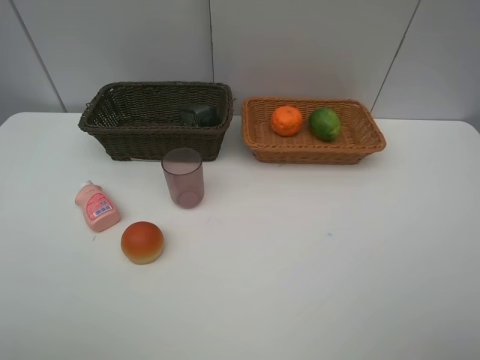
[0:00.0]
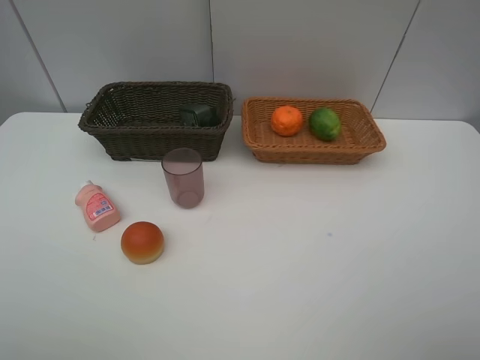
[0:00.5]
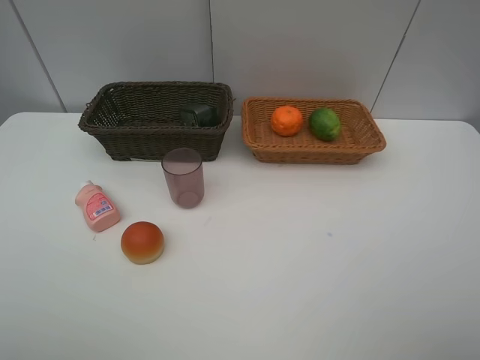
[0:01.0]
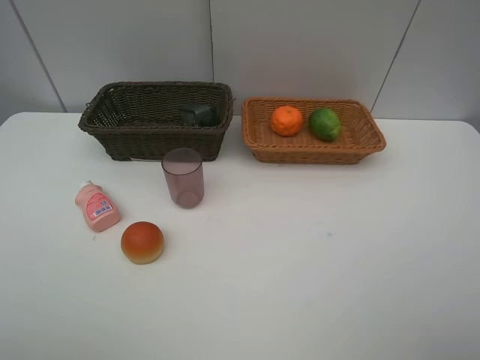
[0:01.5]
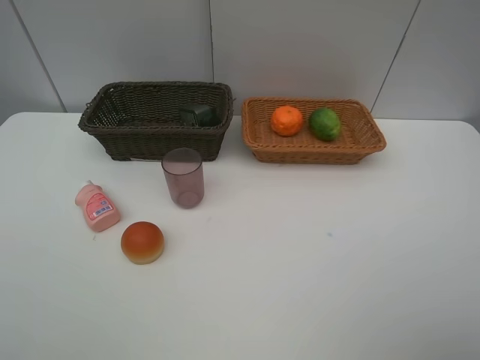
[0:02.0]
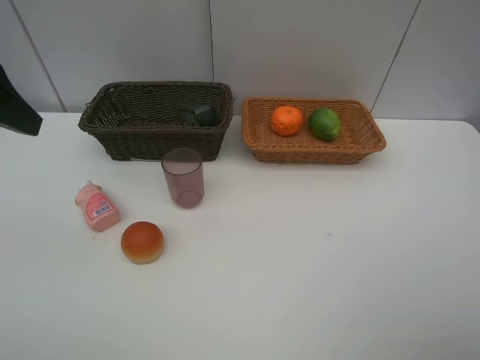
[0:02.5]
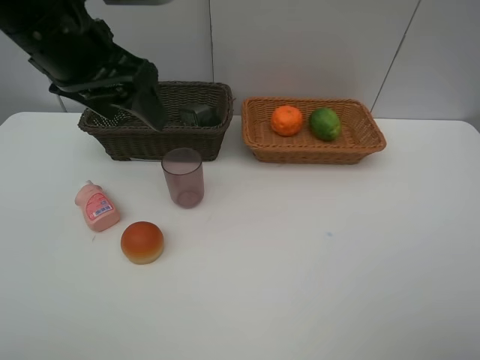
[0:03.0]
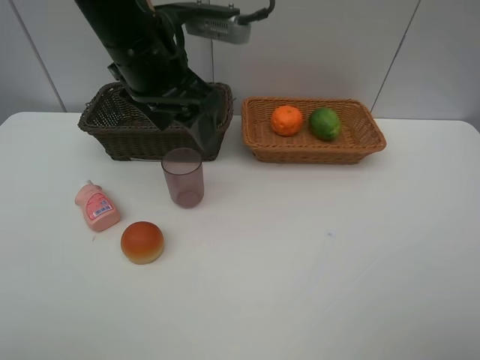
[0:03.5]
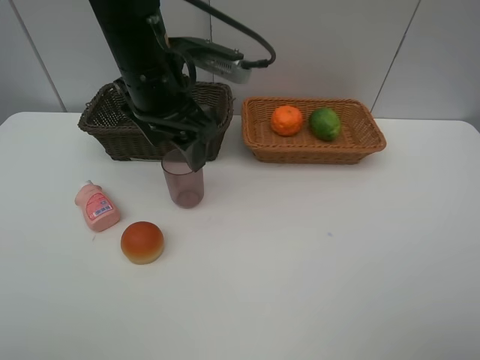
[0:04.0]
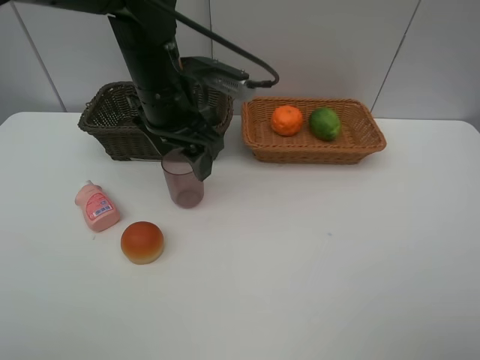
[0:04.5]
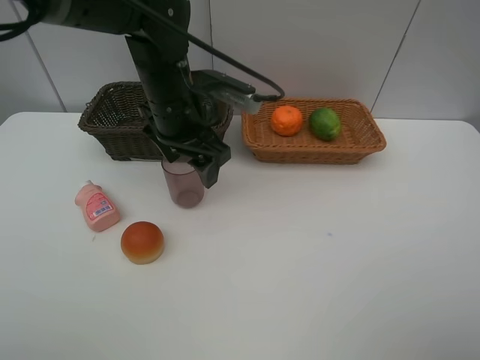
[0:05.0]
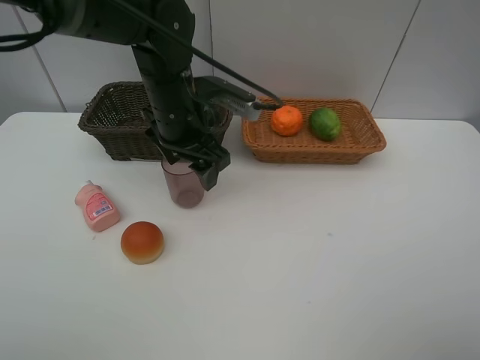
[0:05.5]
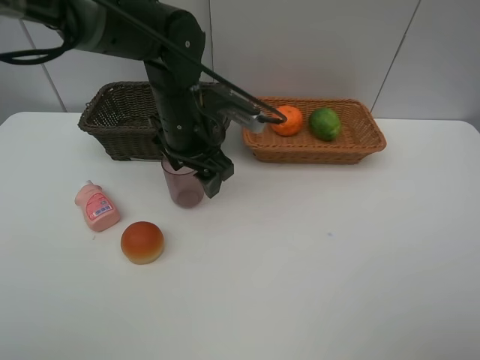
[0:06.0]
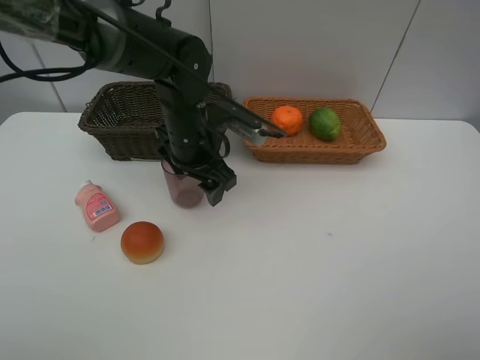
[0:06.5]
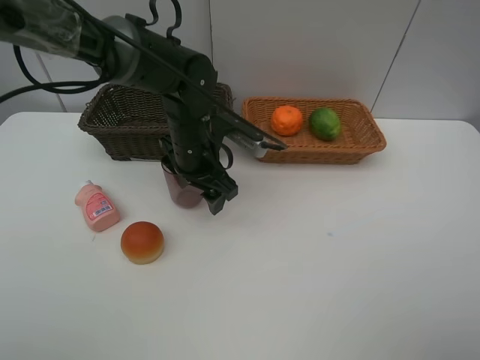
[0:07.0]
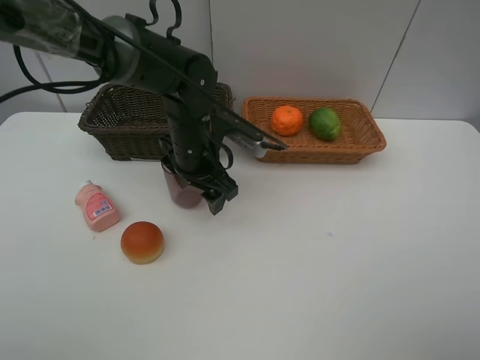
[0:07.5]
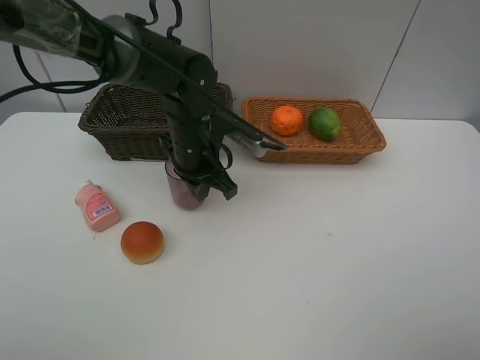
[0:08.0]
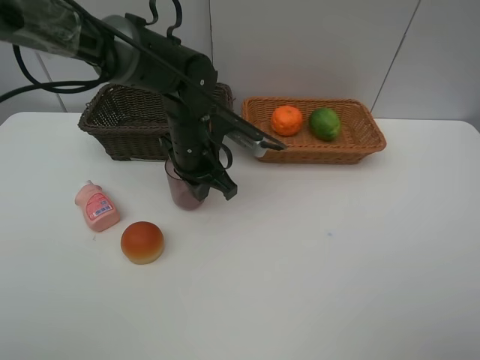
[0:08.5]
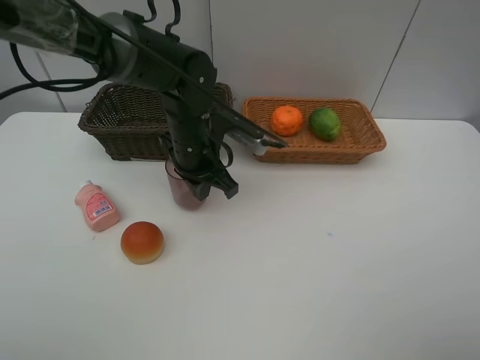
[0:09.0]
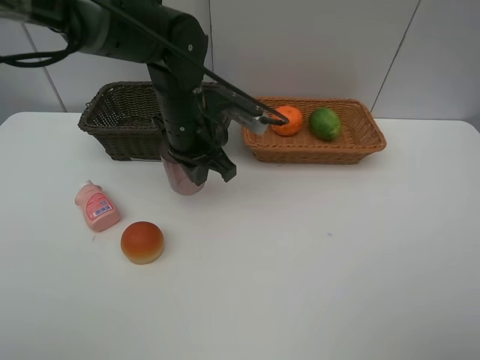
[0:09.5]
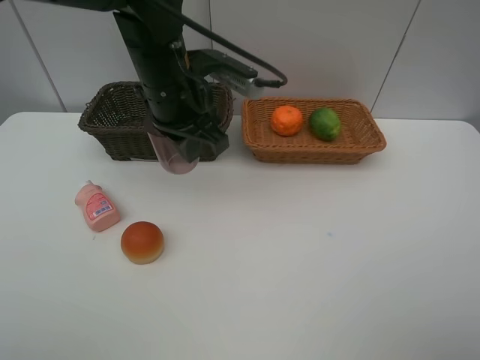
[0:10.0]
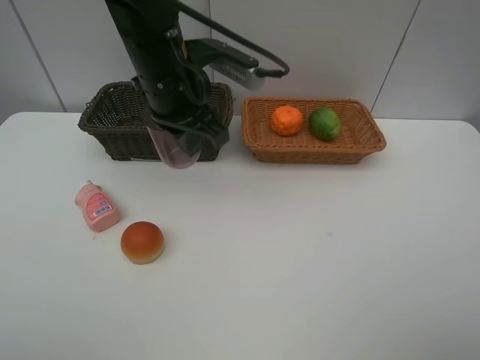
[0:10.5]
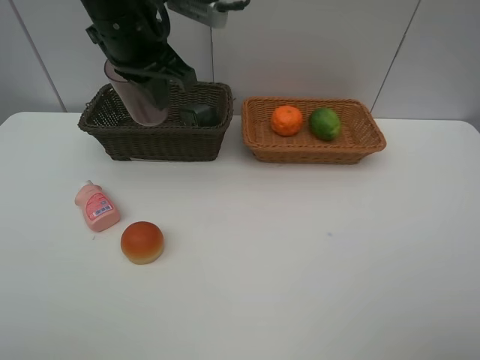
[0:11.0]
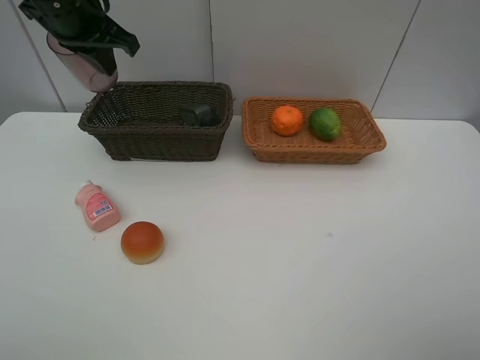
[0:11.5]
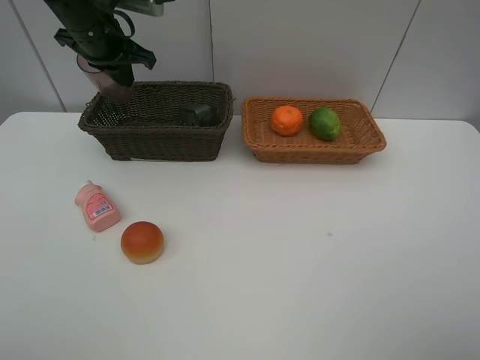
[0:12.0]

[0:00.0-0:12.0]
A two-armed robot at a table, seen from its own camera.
Task of the whole recording: place multiple objects separately in different baskets.
0:02.0 to 0:04.0: The left gripper travels forward, to the right and downward by some 30 cm.
0:04.0 to 0:06.0: The left gripper moves downward, about 10 cm.
0:06.0 to 0:08.0: The left gripper closes.
0:08.0 to 0:10.0: The left gripper travels upward by approximately 10 cm.
0:10.0 to 0:12.0: The left gripper heads to the left and forward, covering approximately 20 cm.

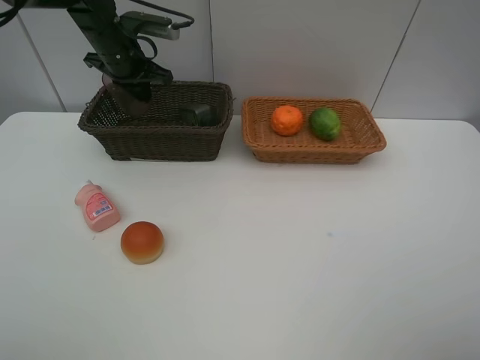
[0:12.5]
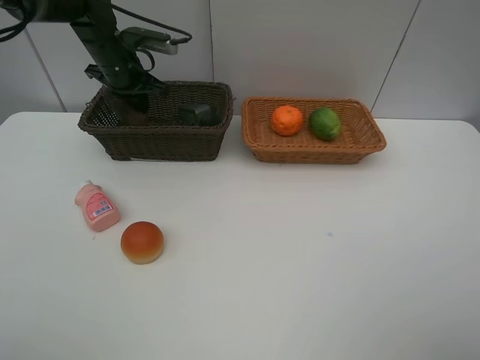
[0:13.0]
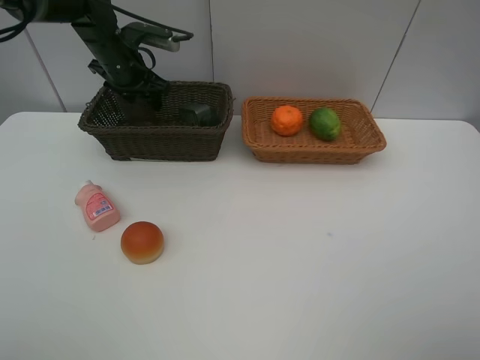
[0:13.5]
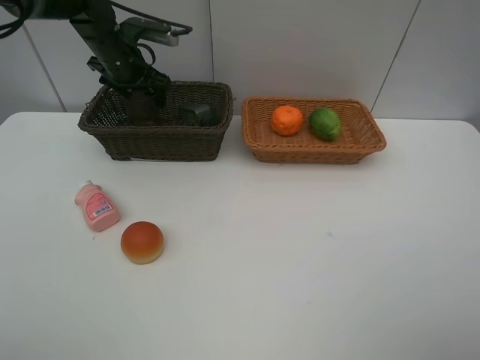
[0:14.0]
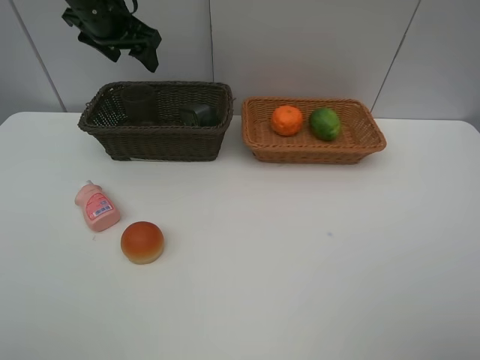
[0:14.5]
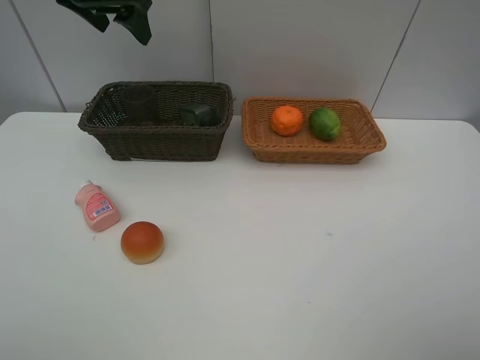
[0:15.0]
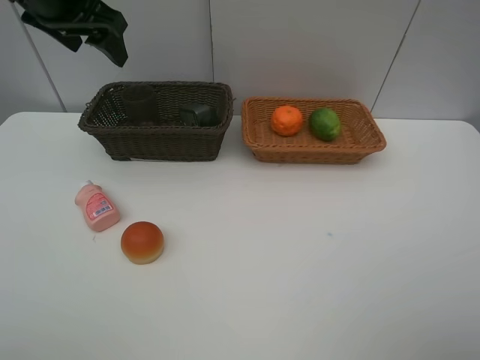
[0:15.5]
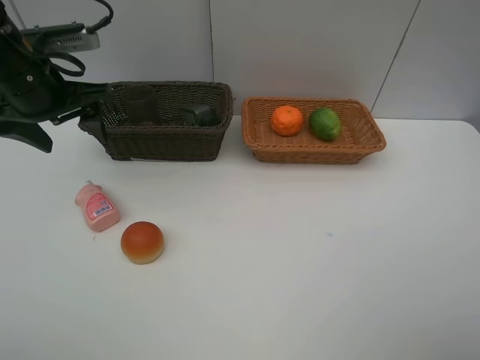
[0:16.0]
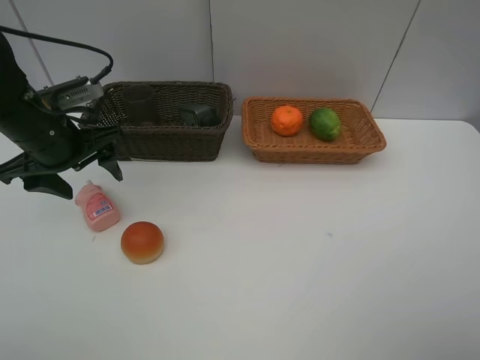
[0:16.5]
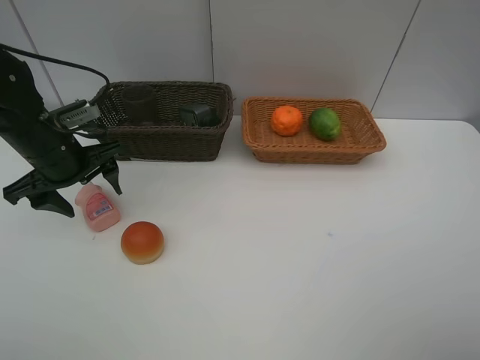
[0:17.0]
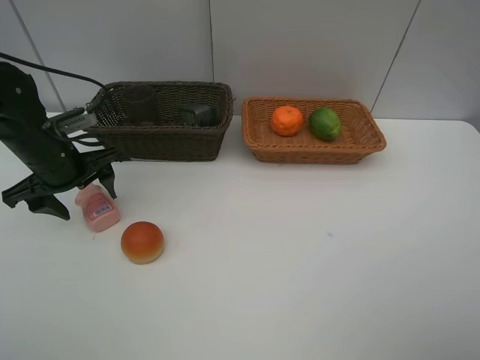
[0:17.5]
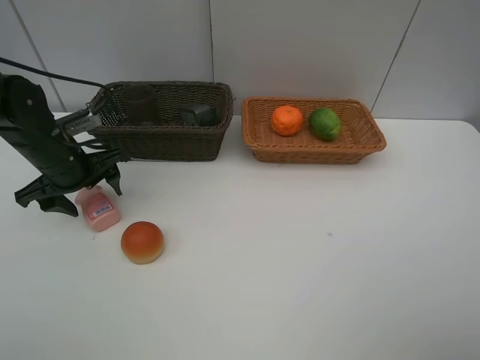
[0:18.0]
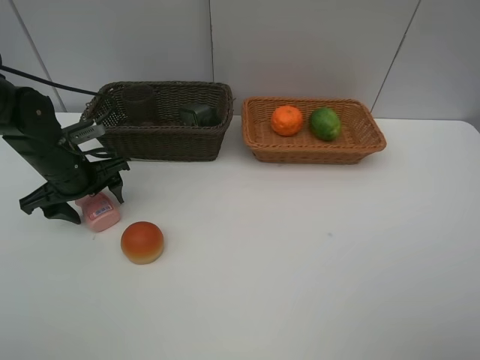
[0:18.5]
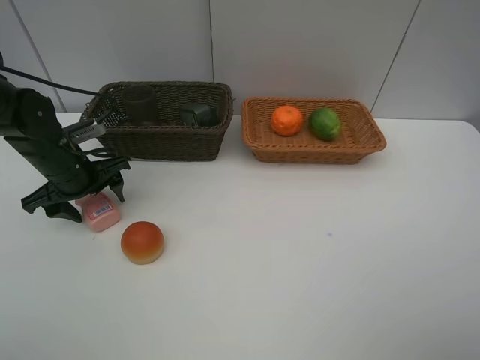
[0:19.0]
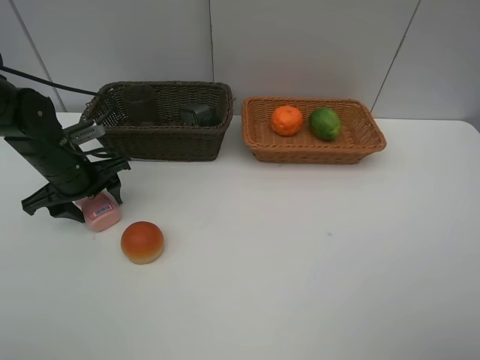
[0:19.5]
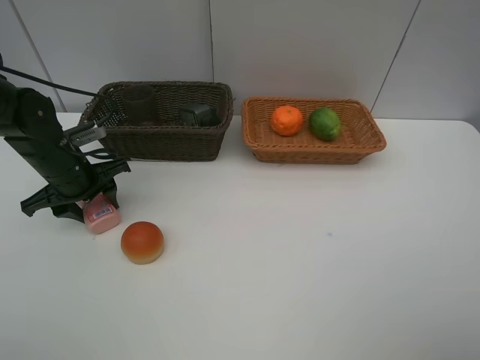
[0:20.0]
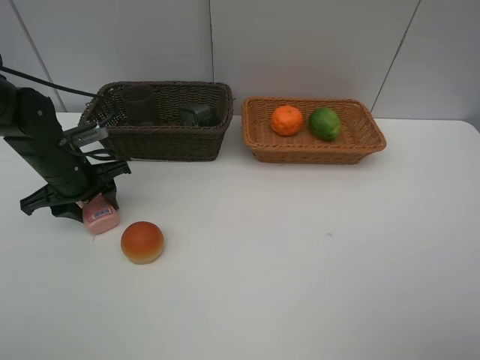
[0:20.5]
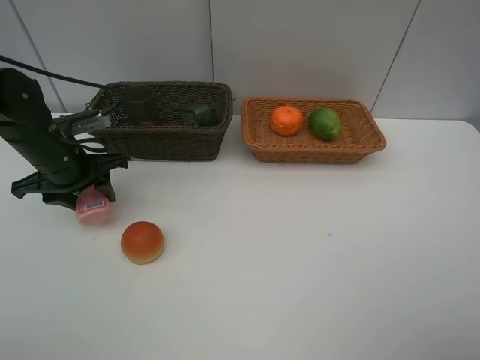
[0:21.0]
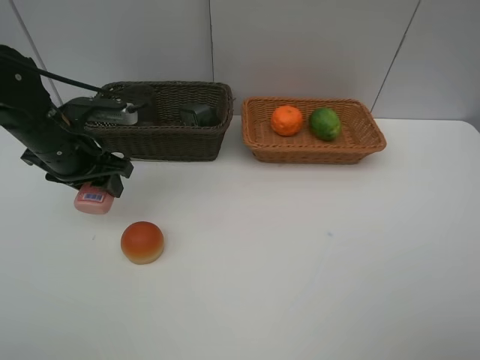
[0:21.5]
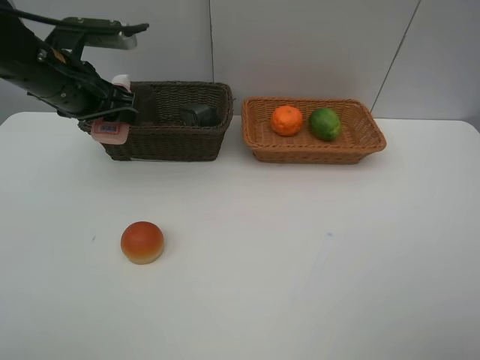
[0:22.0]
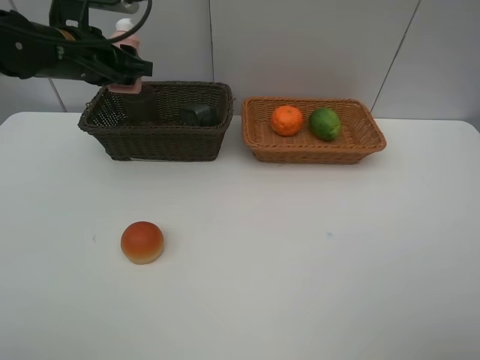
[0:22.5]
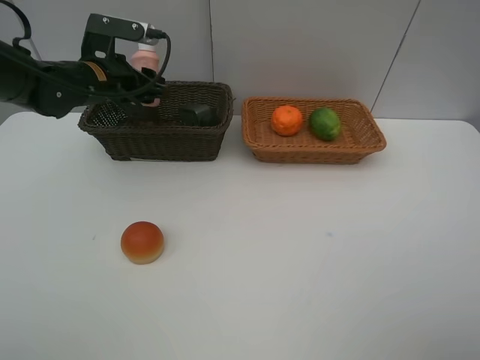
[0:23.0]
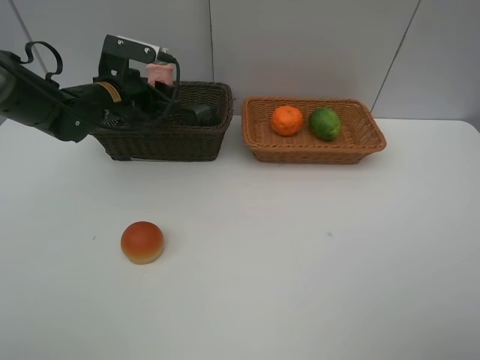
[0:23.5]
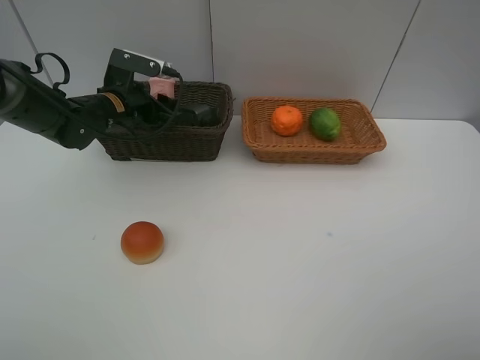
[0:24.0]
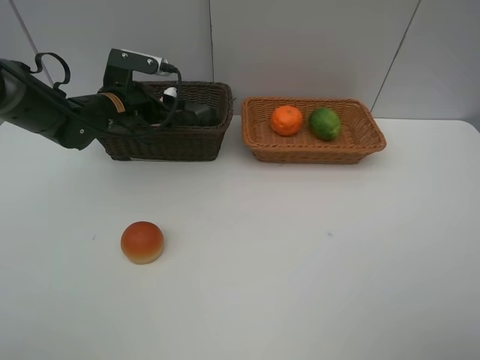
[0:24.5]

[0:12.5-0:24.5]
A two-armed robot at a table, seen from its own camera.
Task of the whole recording: place multiple objects separately in different baskets.
0:12.5 to 0:14.5: The left gripper travels upward by approximately 10 cm, and opens its fingers.
0:14.5 to 0:16.5: The left gripper heads backward and downward, covering roughly 20 cm.
0:16.5 to 0:18.5: The left gripper moves downward, roughly 10 cm.
0:18.5 to 0:20.5: The two grippers keep their place.
0:20.5 to 0:22.5: The left gripper is displaced upward and forward by roughly 15 cm.
0:22.5 to 0:24.5: The left gripper travels downward by some 10 cm.

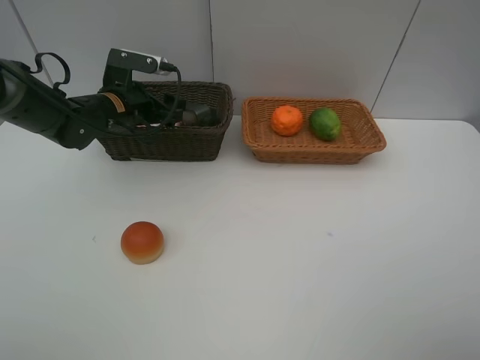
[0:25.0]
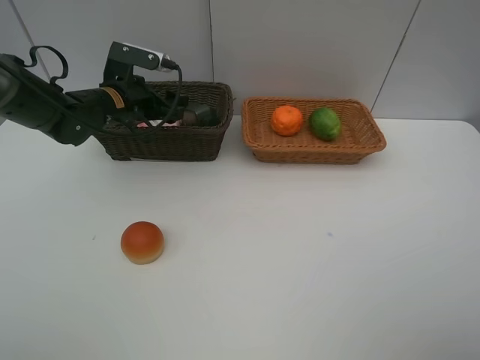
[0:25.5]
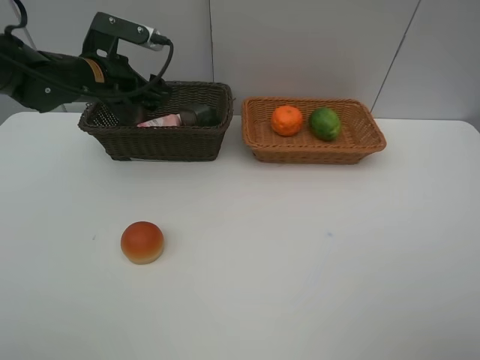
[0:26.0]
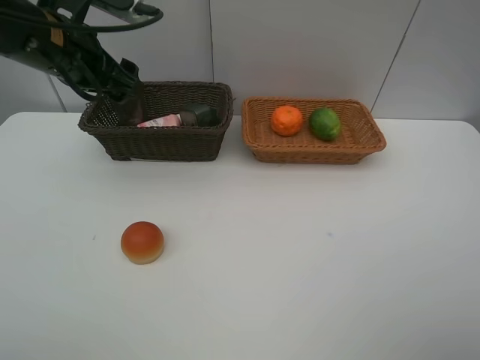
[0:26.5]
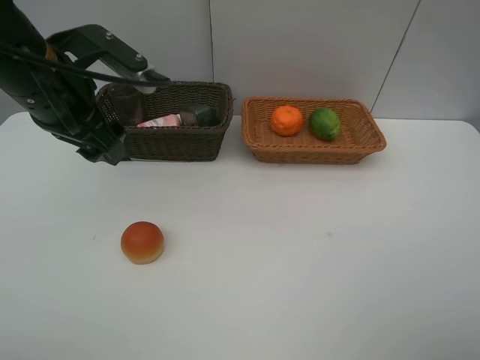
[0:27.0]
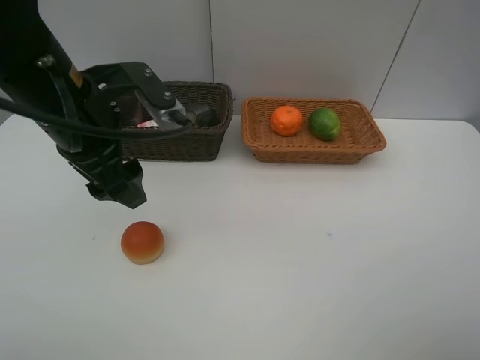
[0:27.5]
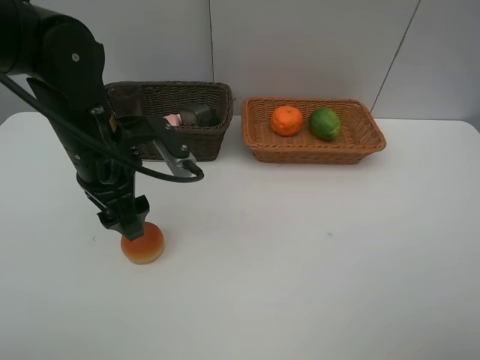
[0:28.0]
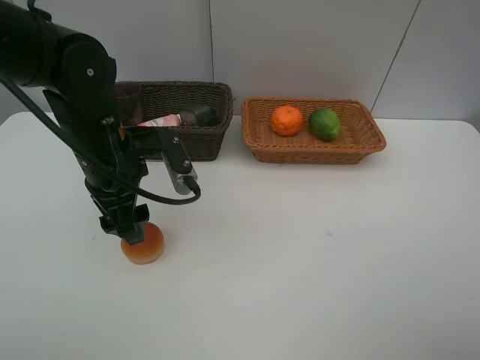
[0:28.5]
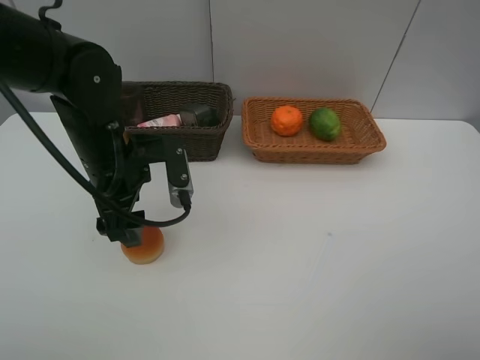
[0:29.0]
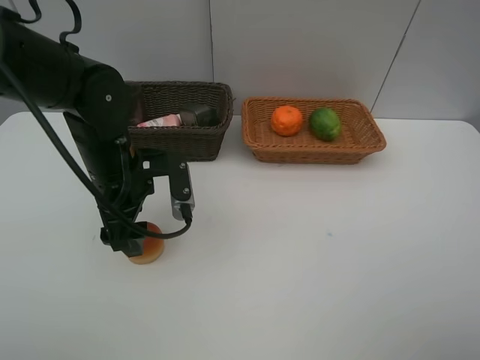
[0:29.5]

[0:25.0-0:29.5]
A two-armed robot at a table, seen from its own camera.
Task of the whole recording: place multiple objects separately in different baskets.
0:25.0 to 0:27.0: The left gripper goes roughly 20 cm backward and upward.
0:27.0 to 0:29.5: The left gripper heads downward, covering about 10 cm.
